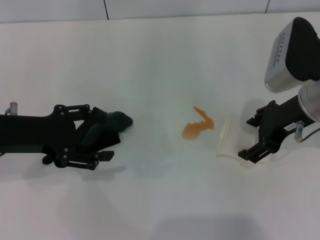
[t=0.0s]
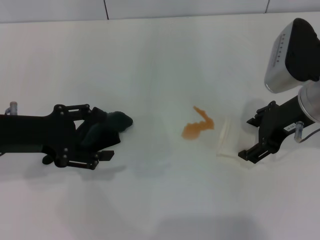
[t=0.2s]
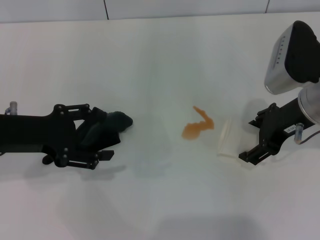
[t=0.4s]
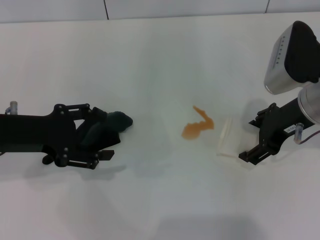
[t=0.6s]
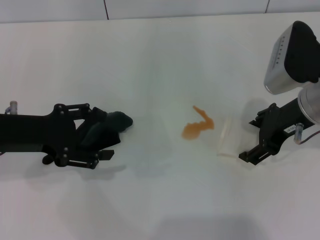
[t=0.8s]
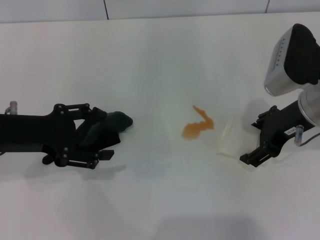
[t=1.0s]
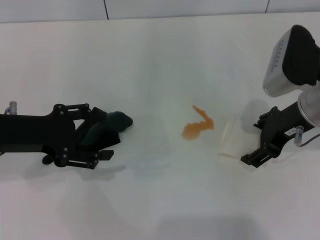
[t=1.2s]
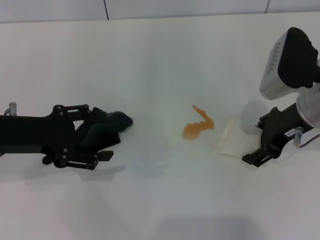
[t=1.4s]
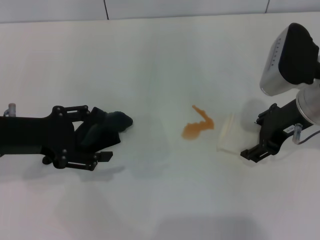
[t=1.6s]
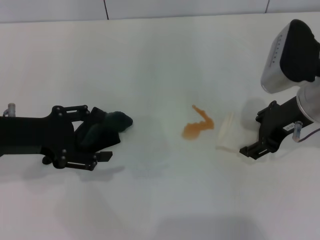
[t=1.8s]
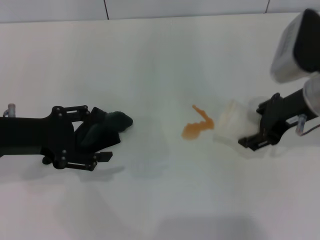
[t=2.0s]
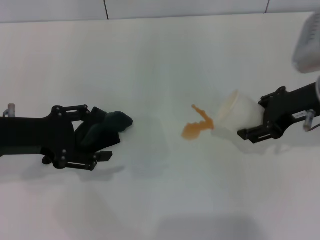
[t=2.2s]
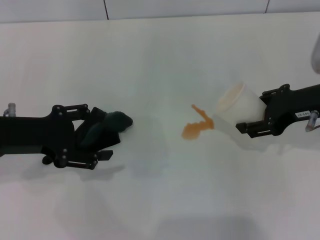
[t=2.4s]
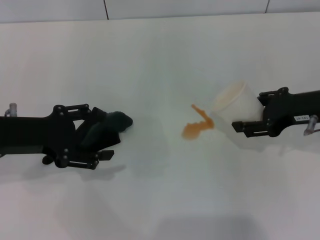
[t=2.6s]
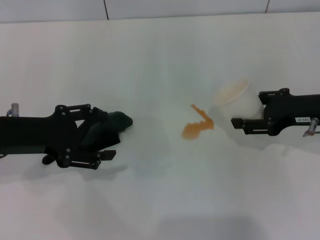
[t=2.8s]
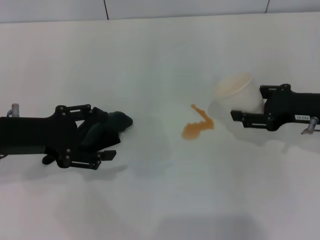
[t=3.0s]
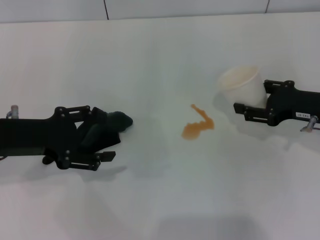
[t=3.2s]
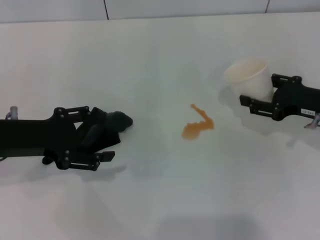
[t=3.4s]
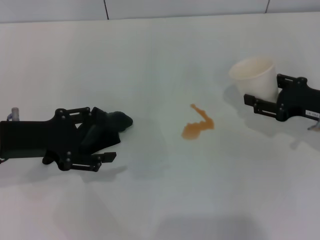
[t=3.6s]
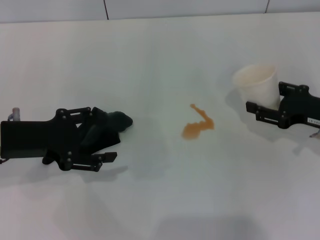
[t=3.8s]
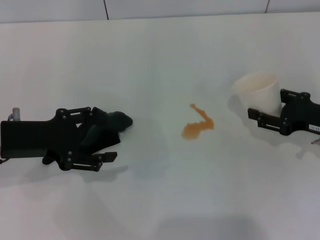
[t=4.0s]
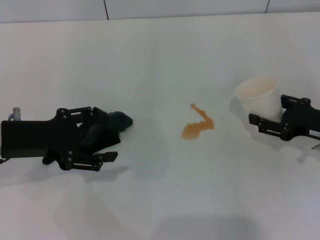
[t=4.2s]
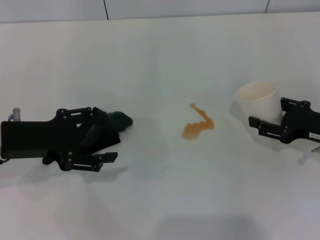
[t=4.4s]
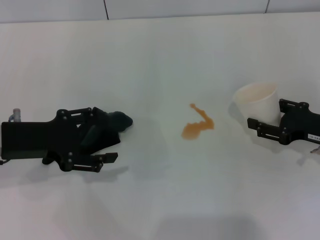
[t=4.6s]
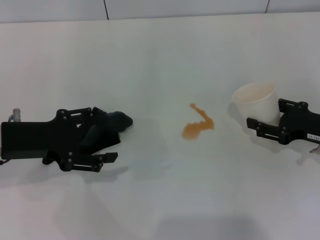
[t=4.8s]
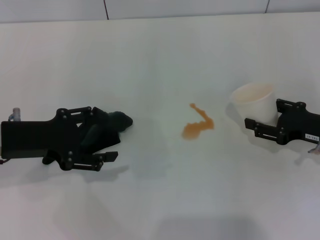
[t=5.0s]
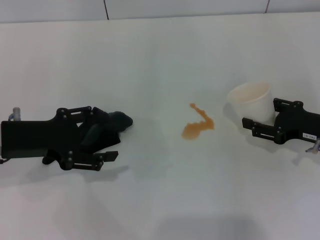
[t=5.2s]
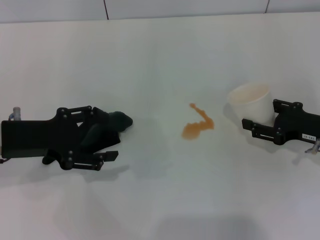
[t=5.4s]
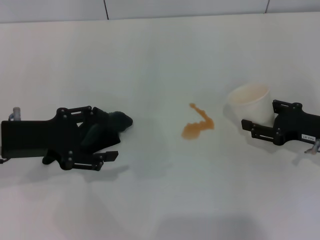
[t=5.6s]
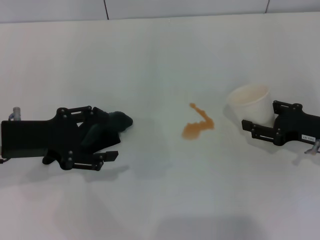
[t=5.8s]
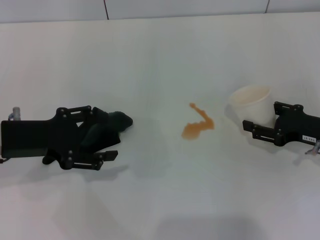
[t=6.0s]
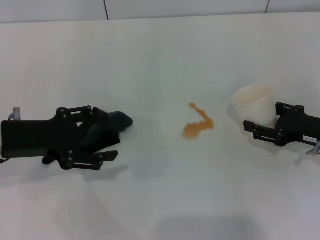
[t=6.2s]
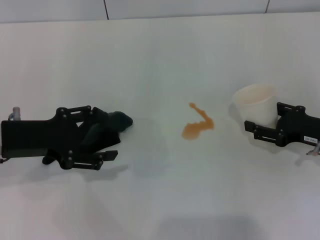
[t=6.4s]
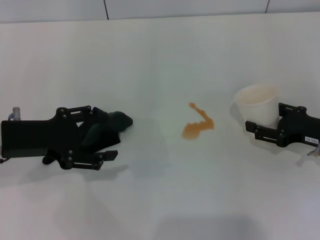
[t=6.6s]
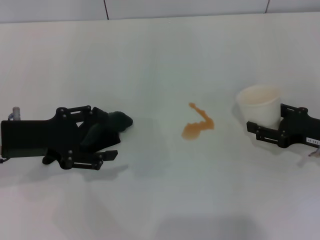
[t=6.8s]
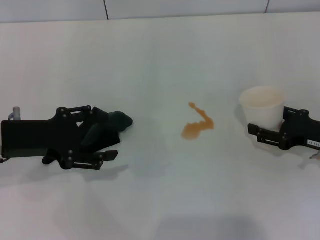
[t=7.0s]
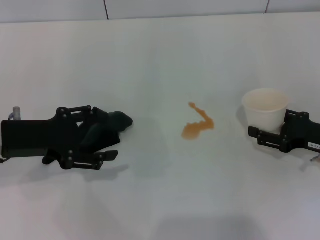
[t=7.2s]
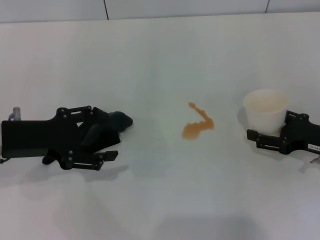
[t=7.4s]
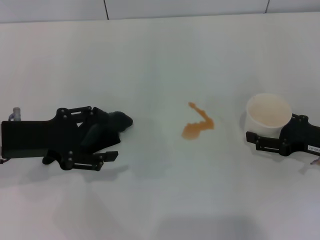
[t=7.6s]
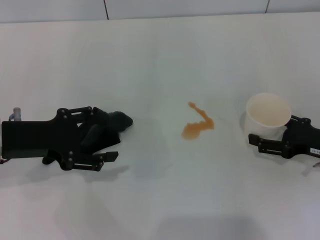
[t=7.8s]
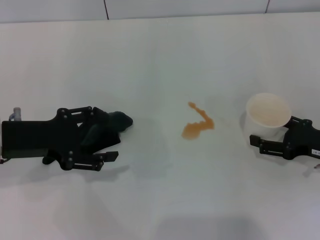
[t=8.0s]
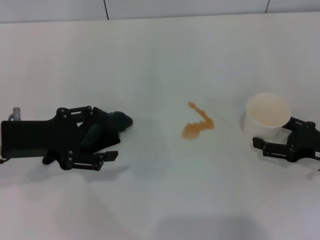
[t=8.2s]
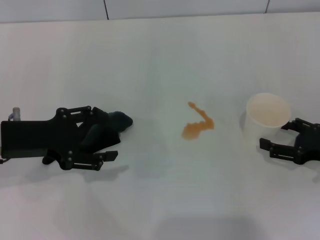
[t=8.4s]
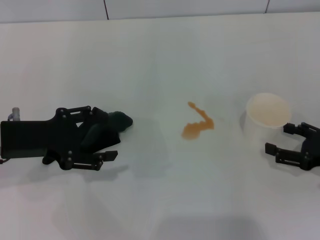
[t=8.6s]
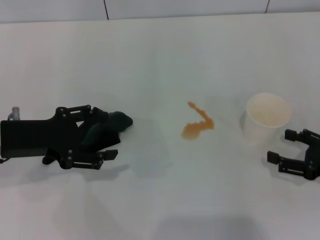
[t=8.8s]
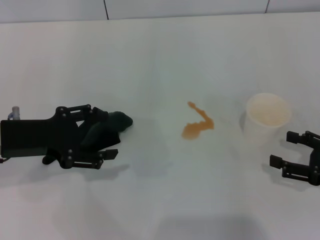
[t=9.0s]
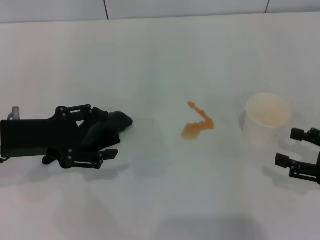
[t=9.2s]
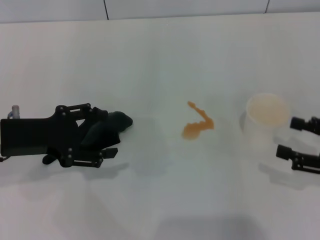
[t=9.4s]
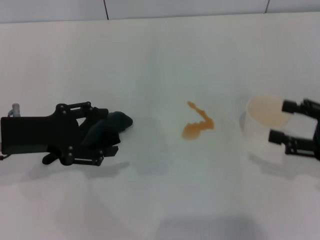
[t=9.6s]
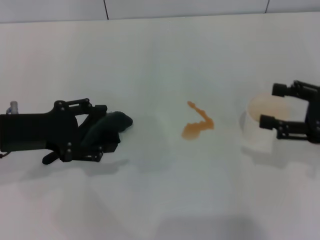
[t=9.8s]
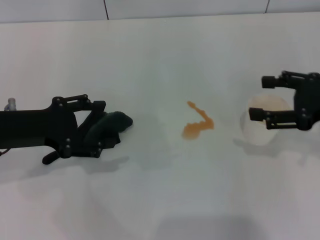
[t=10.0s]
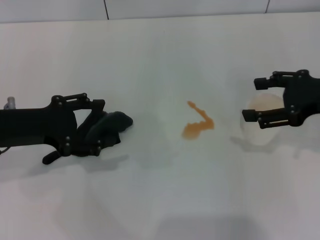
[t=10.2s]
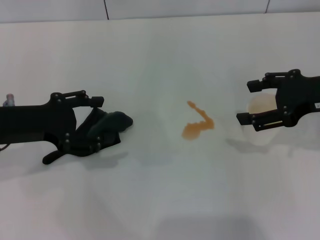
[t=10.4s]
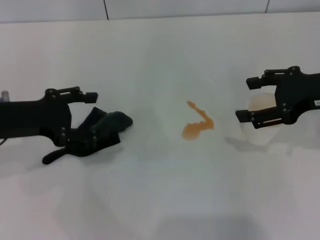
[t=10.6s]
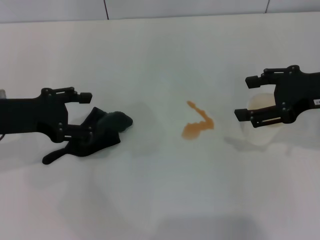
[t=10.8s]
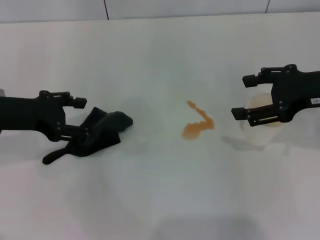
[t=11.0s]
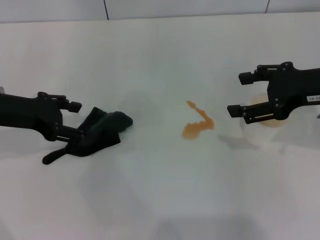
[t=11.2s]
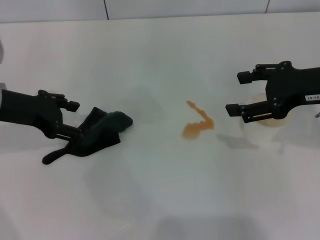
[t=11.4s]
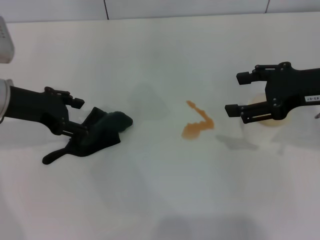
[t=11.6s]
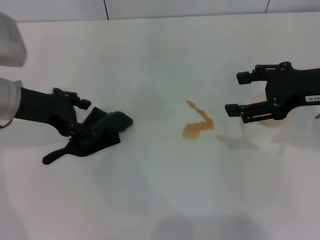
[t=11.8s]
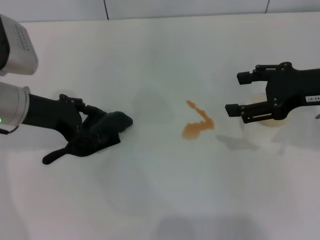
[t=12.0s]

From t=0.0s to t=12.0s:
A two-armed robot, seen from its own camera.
Step, from t=1.8s to t=8.2s: Stand the paper cup upright with the right gripper.
From t=0.0s to t=1.6s: The two grippers keep their place.
From t=1.6s to t=3.0s: The right gripper moves to the right, about 5 cm, and closes its fingers.
From t=3.0s to t=4.4s: The right gripper ends up about 5 cm from where it was.
From t=4.4s to t=6.0s: The two grippers keep their place.
From t=6.0s to t=7.6s: The right gripper opens up.
From t=7.6s to t=9.0s: The right gripper travels backward by some 5 cm, and opens.
From t=9.0s to t=10.4s: The right gripper travels upward, forward and to the left by roughly 15 cm.
From t=10.4s to t=12.0s: The left gripper heads forward, covering roughly 5 cm.

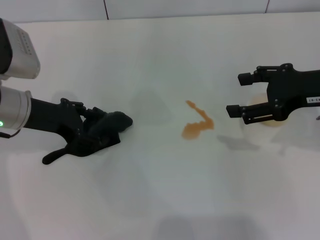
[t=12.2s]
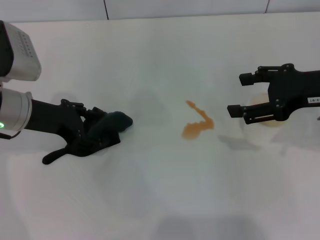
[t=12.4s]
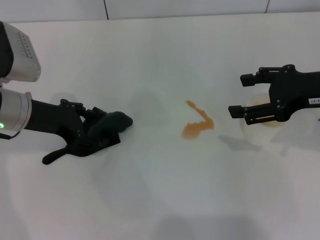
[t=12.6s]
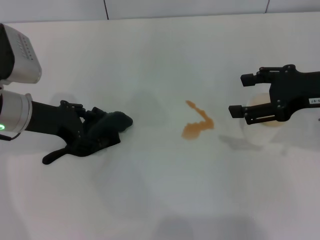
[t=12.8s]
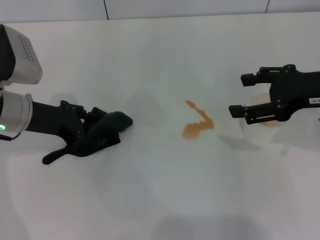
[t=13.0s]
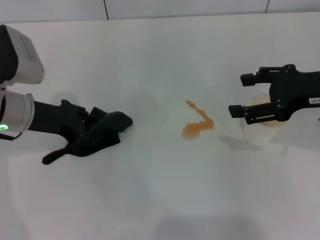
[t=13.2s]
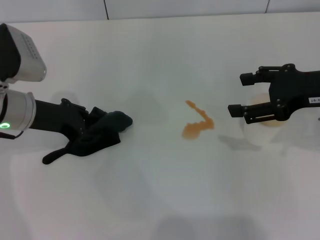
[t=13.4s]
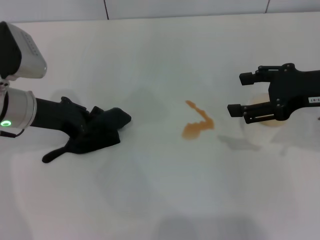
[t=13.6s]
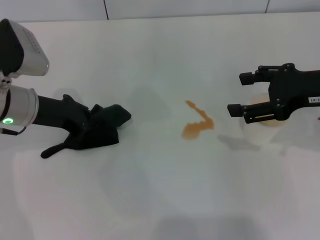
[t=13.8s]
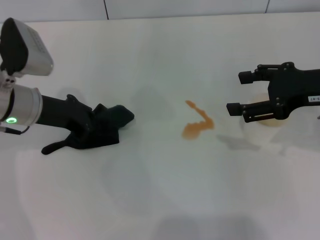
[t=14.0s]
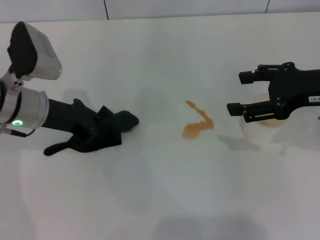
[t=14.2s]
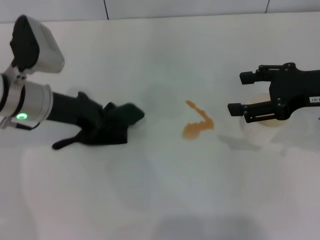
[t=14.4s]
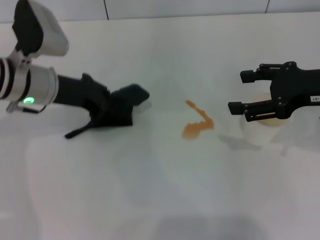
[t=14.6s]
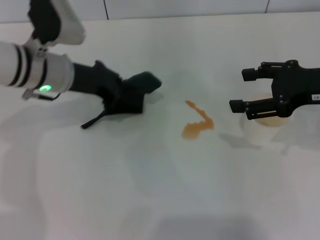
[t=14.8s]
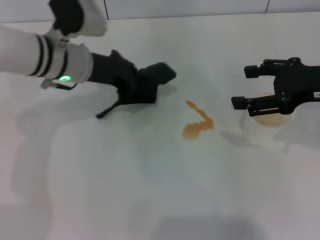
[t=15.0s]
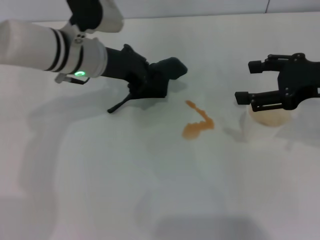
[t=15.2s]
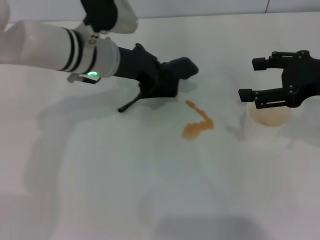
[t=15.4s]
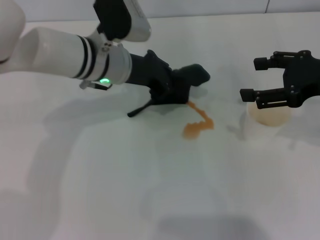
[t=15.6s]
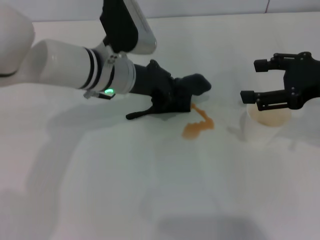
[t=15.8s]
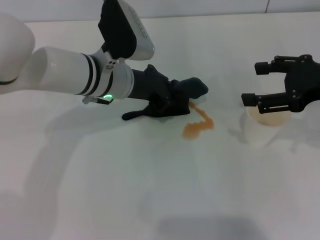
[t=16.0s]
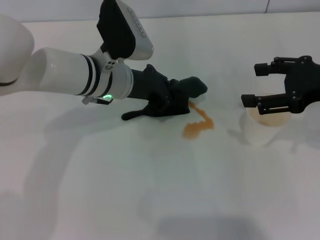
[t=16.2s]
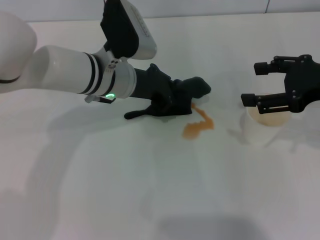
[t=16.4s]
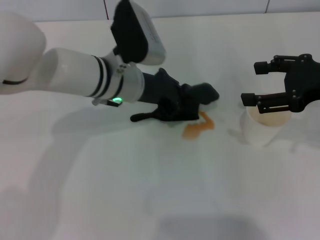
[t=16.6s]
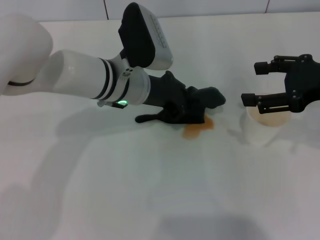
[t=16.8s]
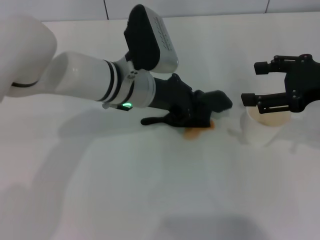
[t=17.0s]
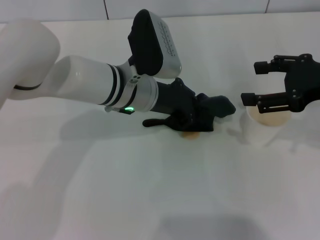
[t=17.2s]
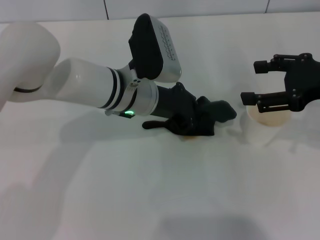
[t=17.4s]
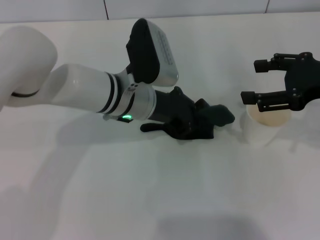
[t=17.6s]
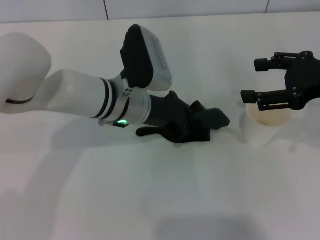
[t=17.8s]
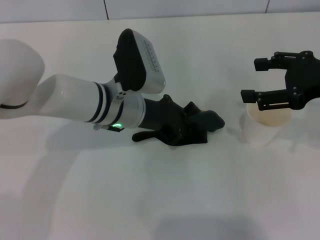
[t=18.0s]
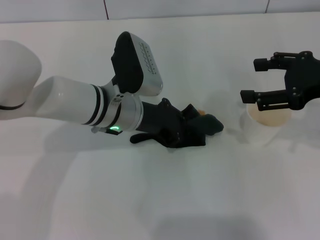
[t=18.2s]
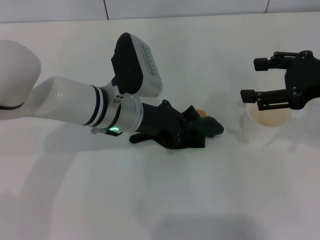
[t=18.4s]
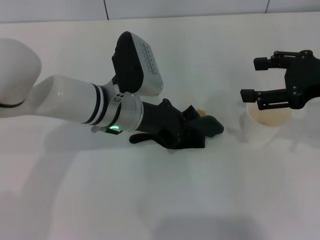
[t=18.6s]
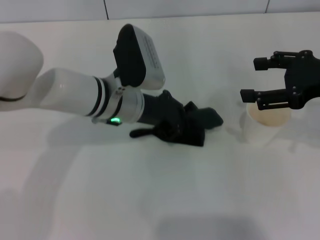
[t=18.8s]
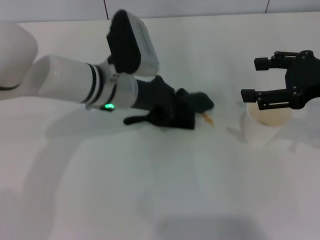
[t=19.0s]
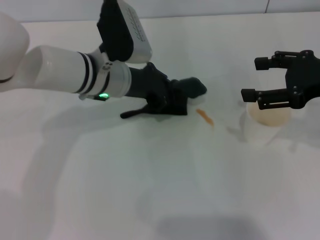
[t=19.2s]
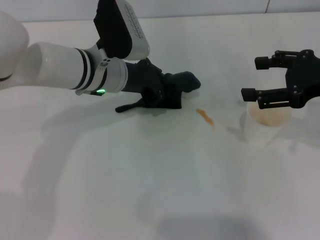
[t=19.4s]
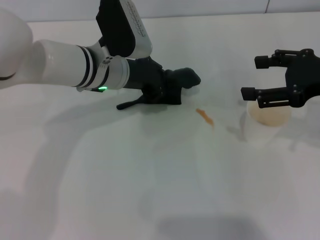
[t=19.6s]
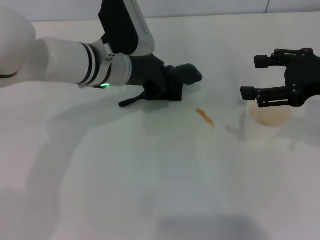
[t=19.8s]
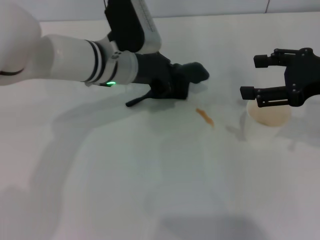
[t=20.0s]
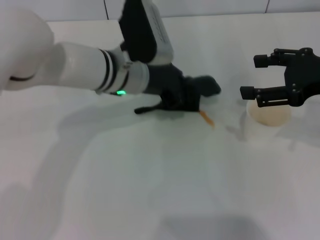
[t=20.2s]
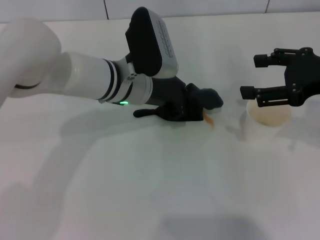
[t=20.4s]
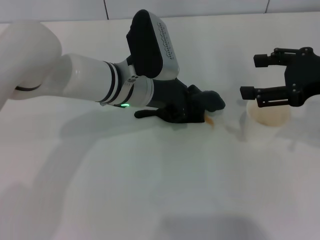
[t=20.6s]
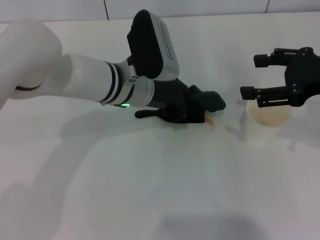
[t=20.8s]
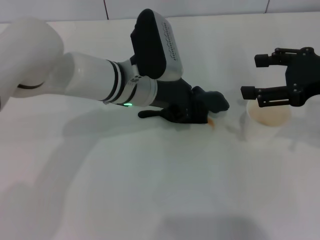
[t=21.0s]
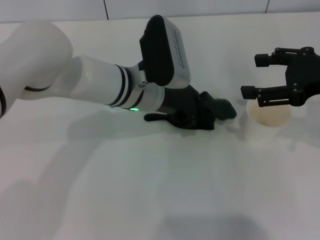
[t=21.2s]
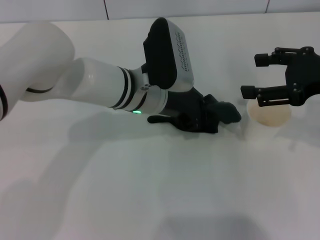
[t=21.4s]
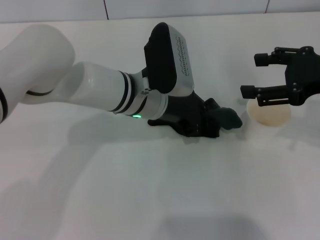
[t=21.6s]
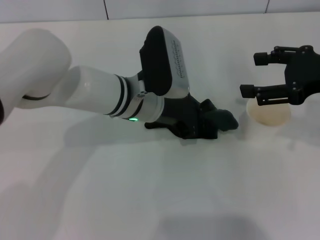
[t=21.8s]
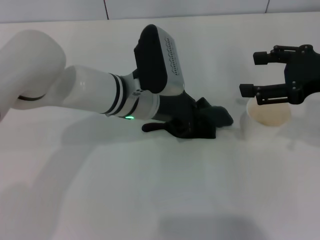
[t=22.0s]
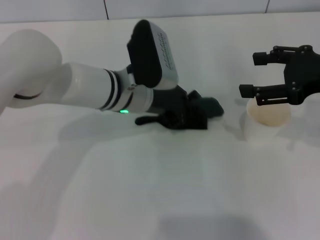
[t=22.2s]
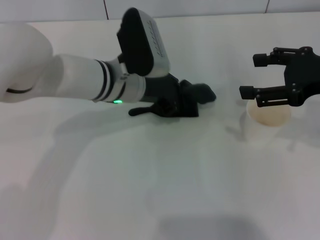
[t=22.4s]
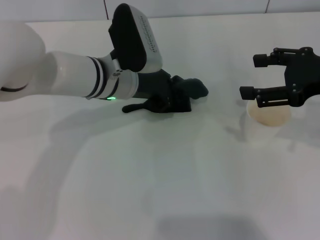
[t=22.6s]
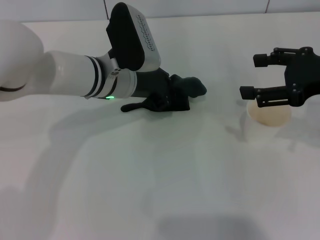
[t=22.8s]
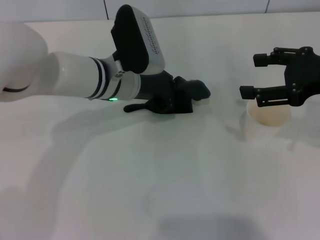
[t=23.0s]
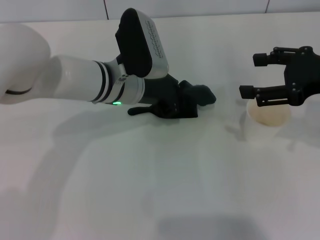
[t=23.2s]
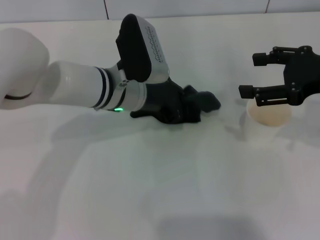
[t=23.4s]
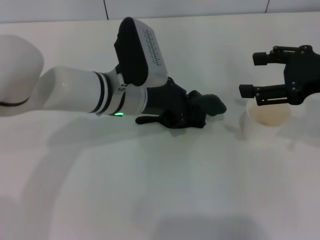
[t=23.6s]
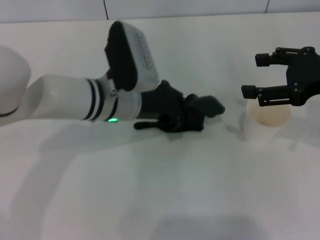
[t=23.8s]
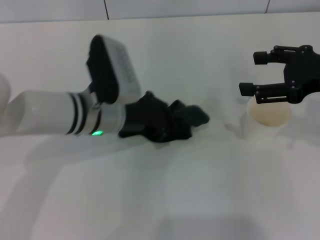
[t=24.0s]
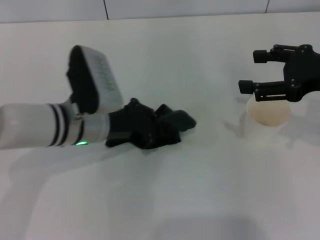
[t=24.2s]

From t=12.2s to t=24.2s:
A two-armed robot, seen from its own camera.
From t=12.2s to t=13.8s: The left gripper closes.
From t=13.8s to t=15.2s: The left gripper shifts roughly 10 cm to the right and forward.
From t=15.2s to t=16.6s: The left gripper ends up approximately 5 cm from where it was.
From t=16.6s to t=18.2s: The grippers move only a little.
From t=18.2s to t=19.8s: The left gripper shifts by approximately 5 cm.
From t=19.8s to t=21.2s: The left gripper moves some 5 cm.
From t=21.2s to t=22.6s: The grippers stay close to where they were, moving slightly.
From t=22.6s to t=24.2s: The left gripper travels backward by roughly 5 cm.
